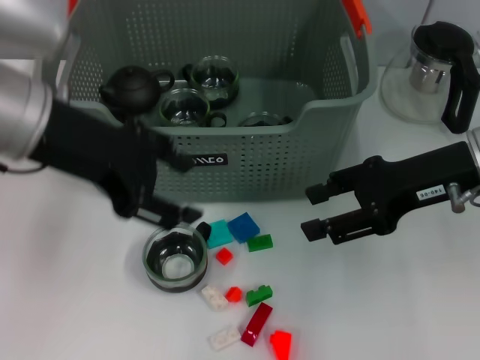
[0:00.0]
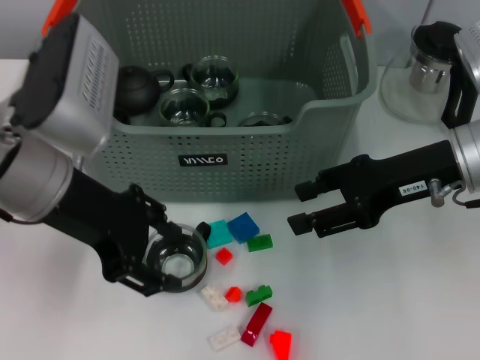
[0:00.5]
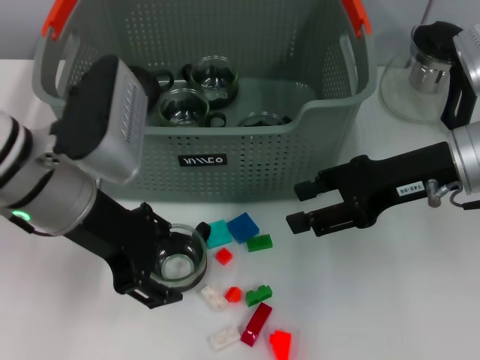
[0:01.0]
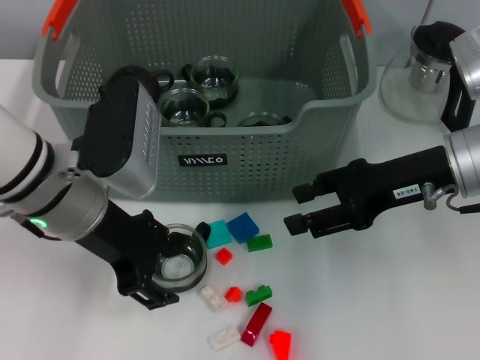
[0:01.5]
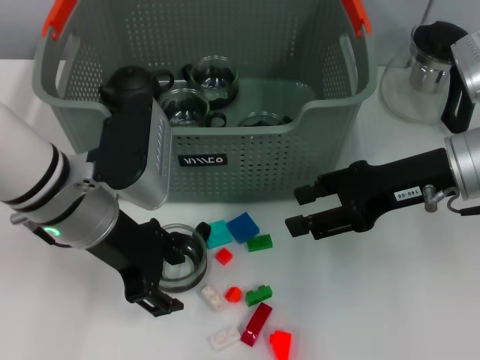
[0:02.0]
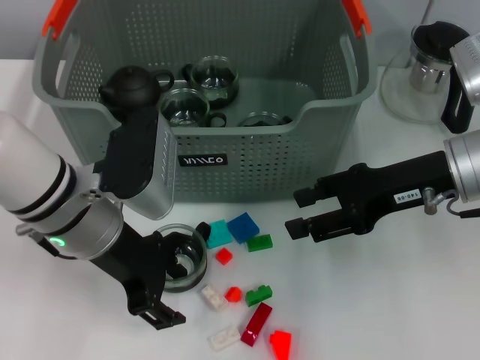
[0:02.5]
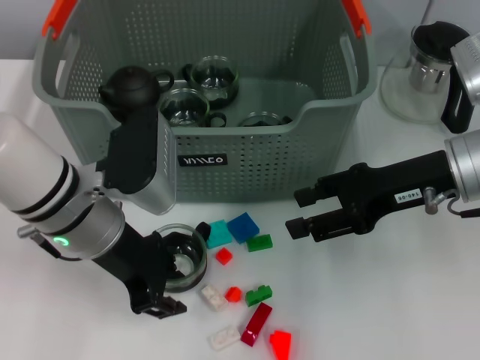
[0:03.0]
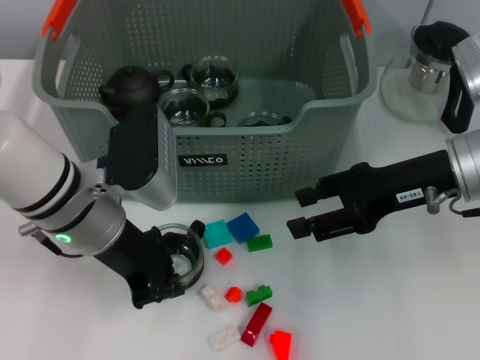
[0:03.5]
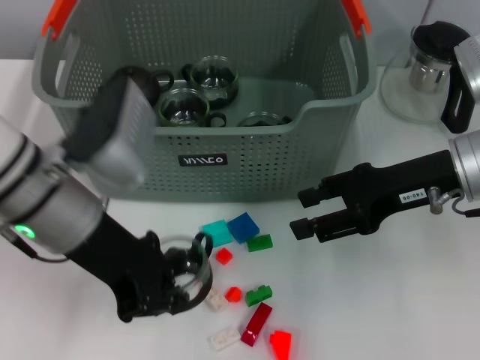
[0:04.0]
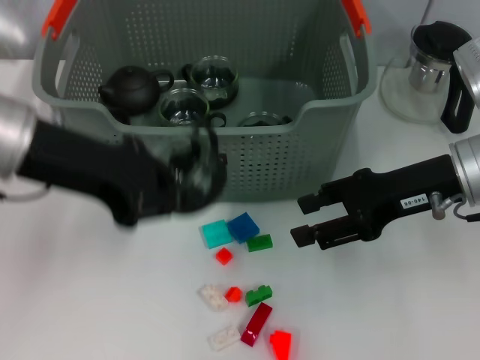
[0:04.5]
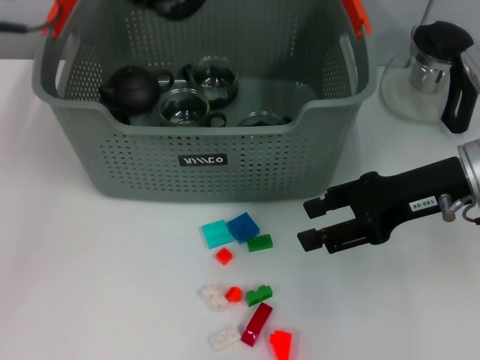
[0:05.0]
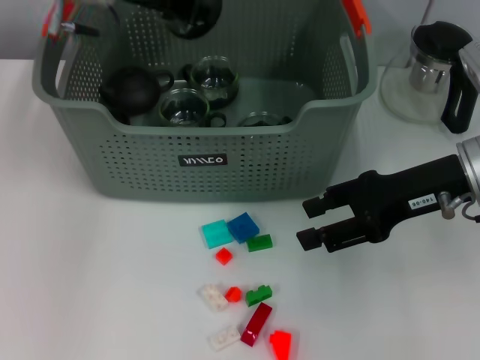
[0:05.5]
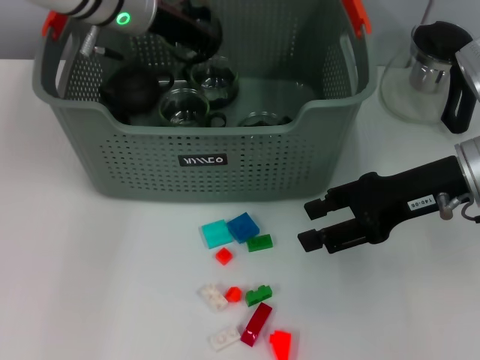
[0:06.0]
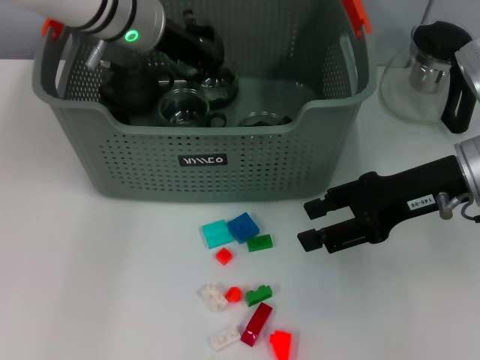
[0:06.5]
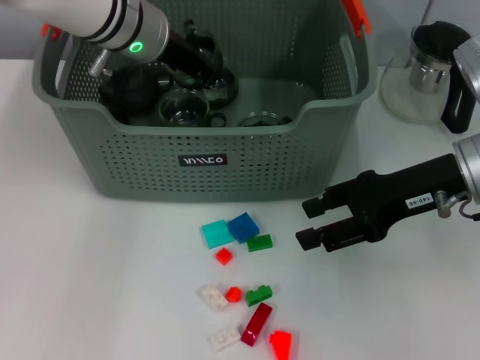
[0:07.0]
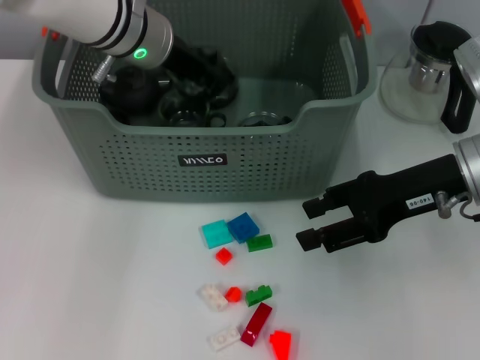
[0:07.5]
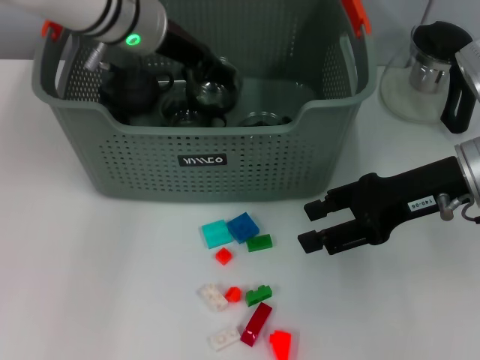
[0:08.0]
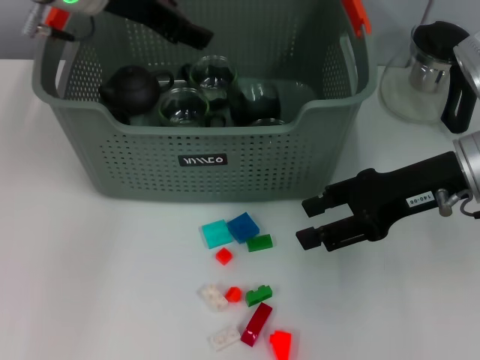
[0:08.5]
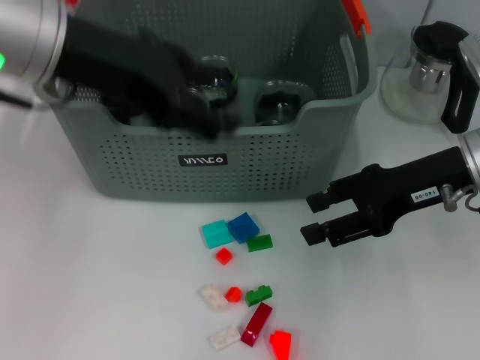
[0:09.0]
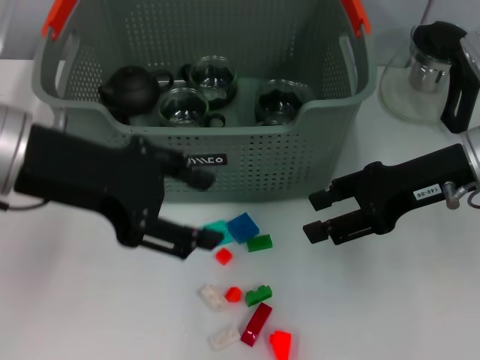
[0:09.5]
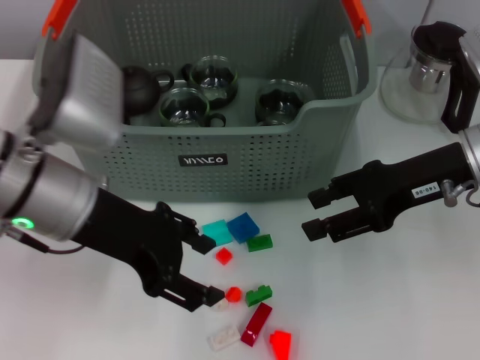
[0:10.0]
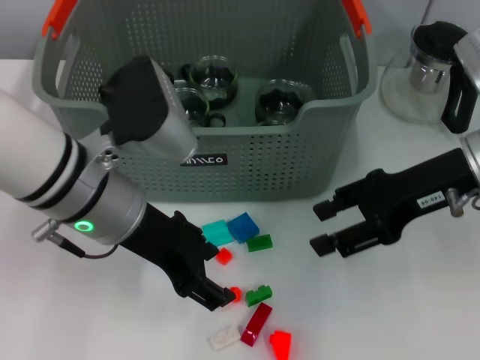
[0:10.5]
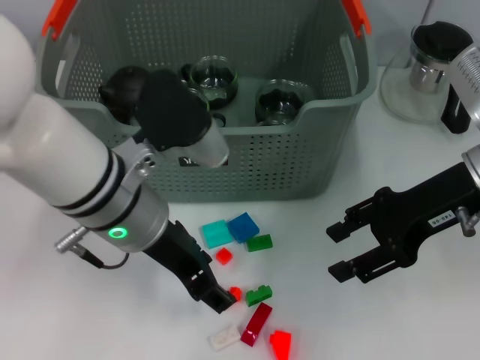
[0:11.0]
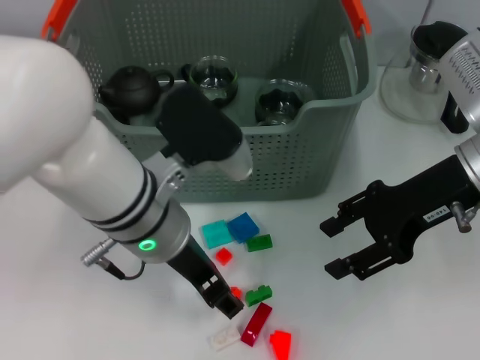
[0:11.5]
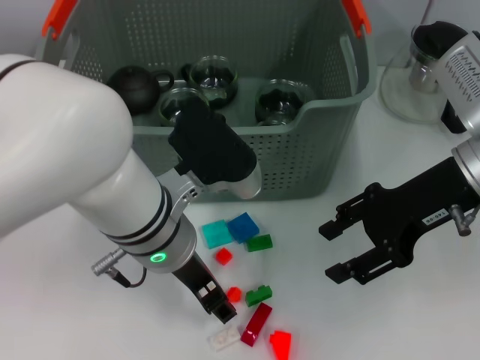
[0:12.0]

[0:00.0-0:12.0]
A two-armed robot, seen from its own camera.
Task of the whole recording: pick up the teacup on the table and place it into the storage bin, pick up the block on the table and place it into the storage bin.
Step, 0:00.0 to 0:03.0: Grasp the cup with left gripper.
Step, 0:04.0 to 0:07.5: Place the cup in the storage box with left gripper.
0:00.0 to 0:02.0: The left gripper travels downward by roughly 10 cm.
0:02.0 to 0:04.0: The left gripper closes its fingers.
0:04.0 to 0:06.0: The left gripper is displaced forward by approximately 15 cm.
0:06.0 to 0:08.0: The left gripper opens.
0:08.0 to 0:10.0: The left gripper shifts approximately 15 cm backward.
0:10.0 to 0:12.0: The left gripper heads to the right, covering about 10 cm.

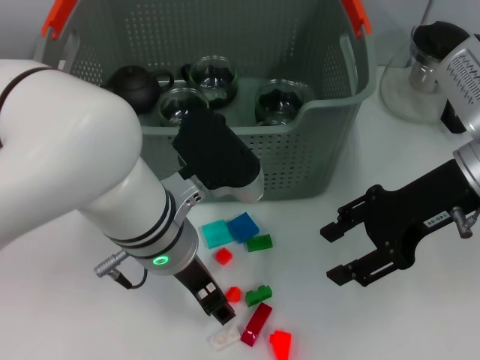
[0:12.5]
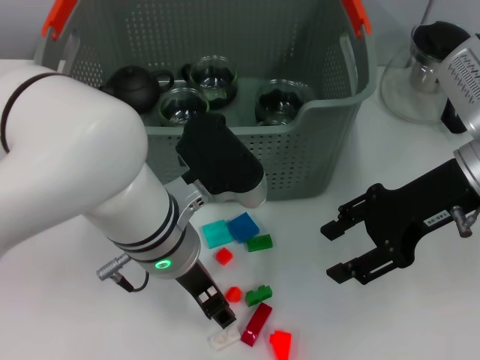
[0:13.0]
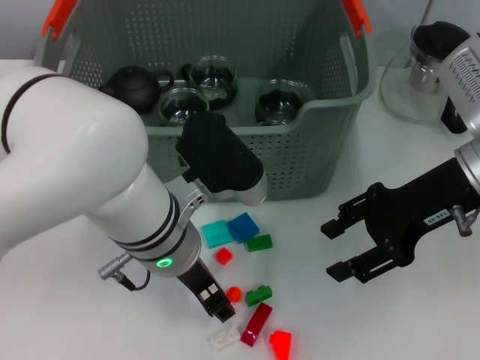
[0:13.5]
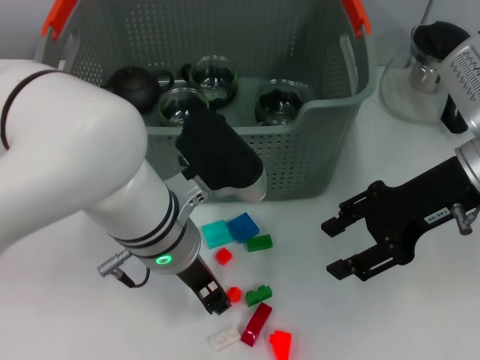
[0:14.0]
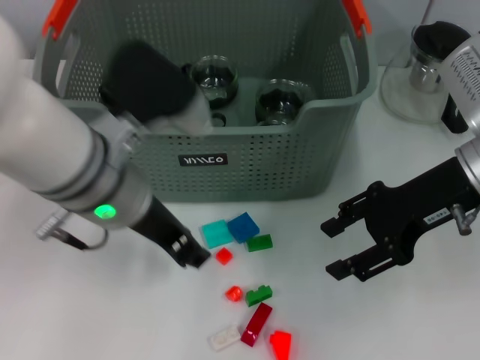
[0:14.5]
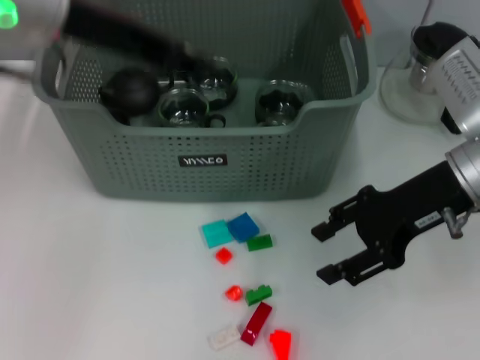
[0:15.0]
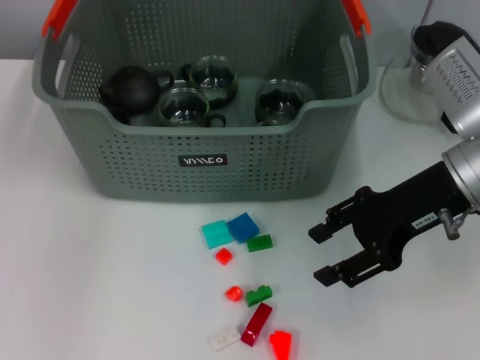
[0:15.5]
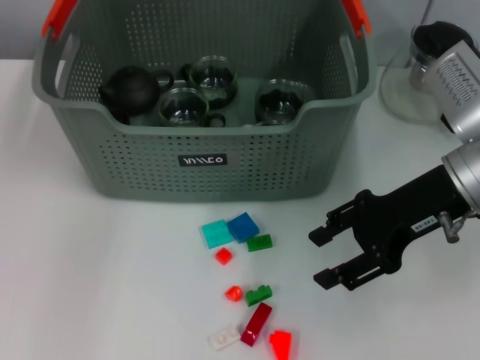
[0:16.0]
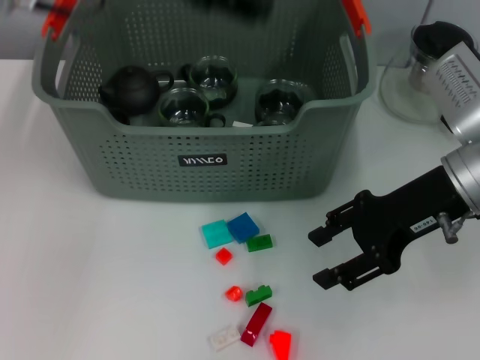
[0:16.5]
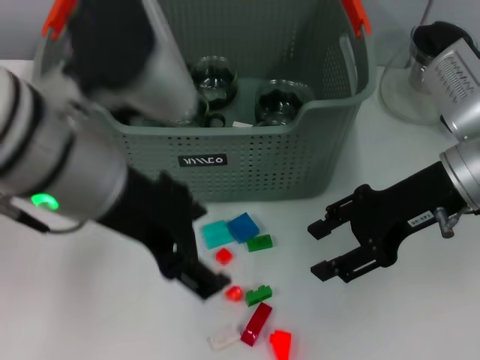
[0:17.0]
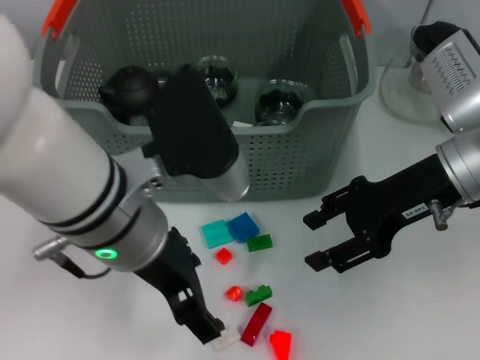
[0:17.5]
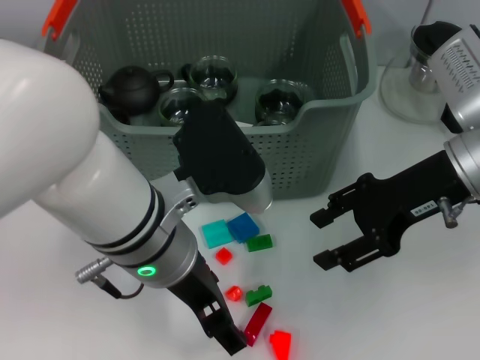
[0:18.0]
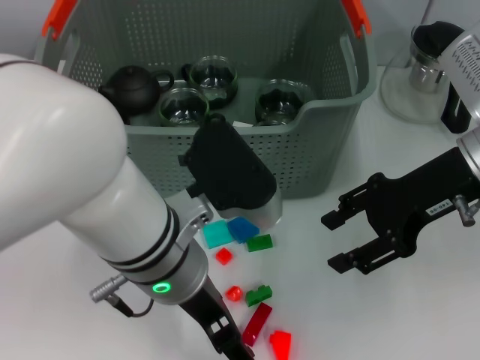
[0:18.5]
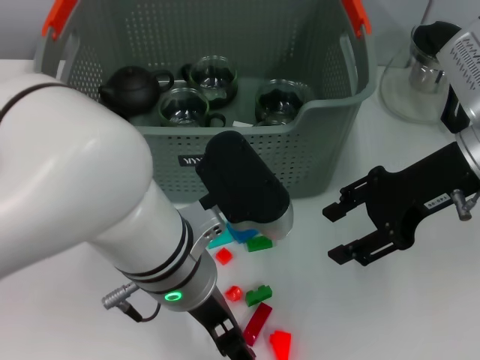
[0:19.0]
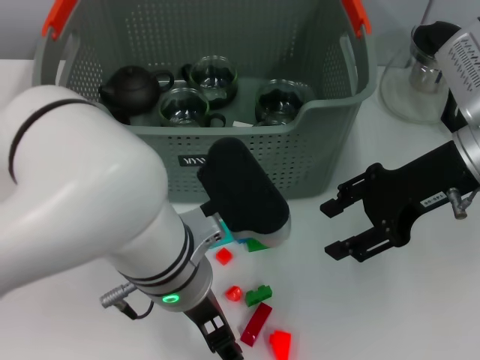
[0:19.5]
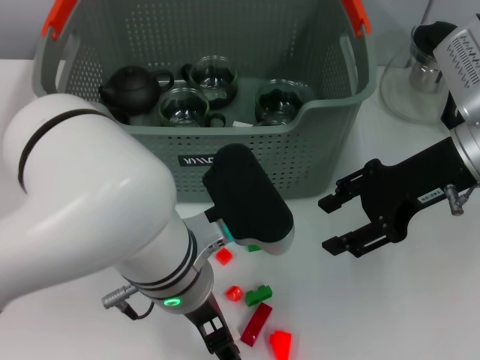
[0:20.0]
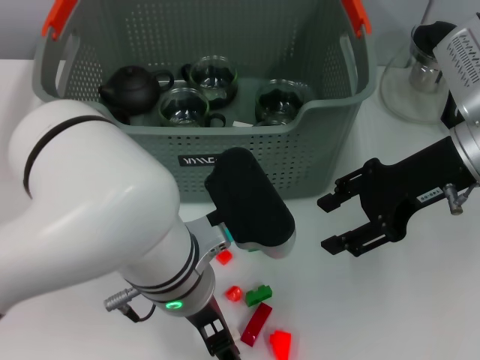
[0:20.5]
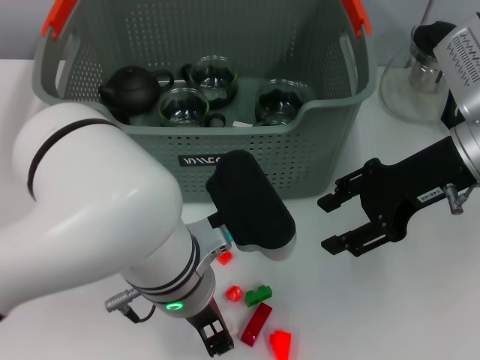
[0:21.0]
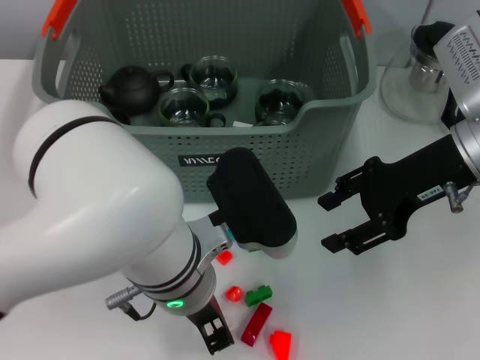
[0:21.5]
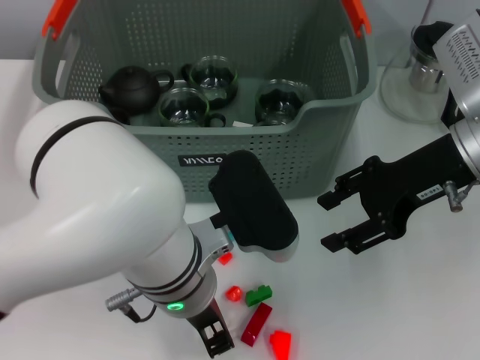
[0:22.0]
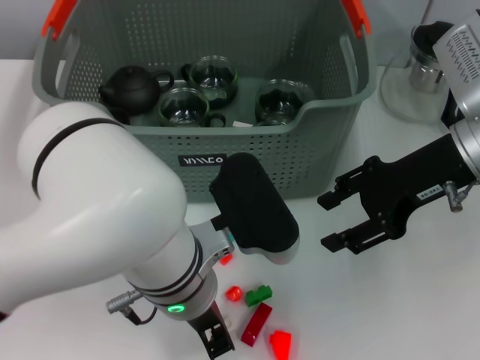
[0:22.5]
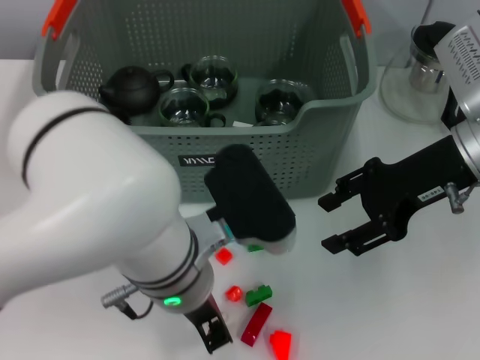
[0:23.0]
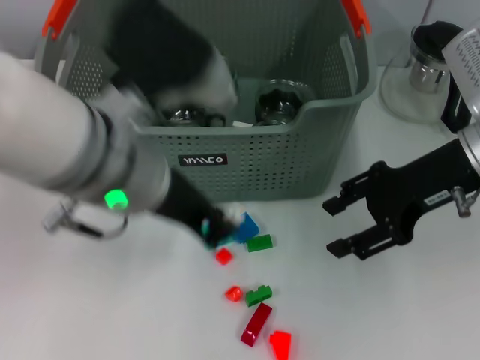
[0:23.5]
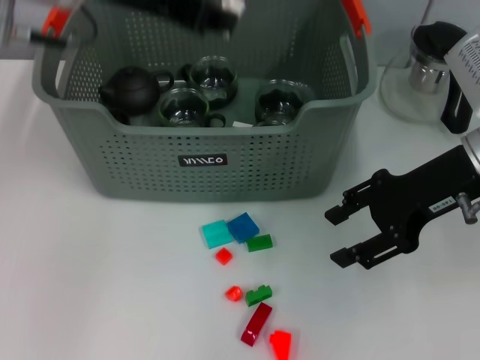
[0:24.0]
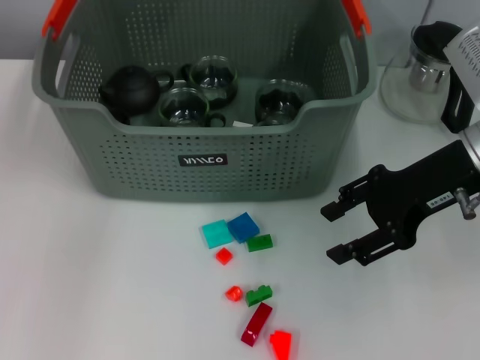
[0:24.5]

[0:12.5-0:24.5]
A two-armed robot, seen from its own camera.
Task of the whole recording: pick up the teacup on the table and place it into the storage bin, pick up the block on the table and place it into the storage bin.
Step, 0:14.0 to 0:15.5: Place the white block in the storage box with left gripper.
Step, 0:16.0 to 0:22.5: Grasp the white block with left gripper.
0:12.5 to 0:14.5: The left gripper goes about 5 cm upward, and closes.
0:14.5 to 0:16.5: The left gripper goes approximately 15 cm upward and forward, and opens.
0:16.5 to 0:18.5: The left gripper heads downward, backward and to the right, covering roughly 20 cm.
0:20.5 to 0:22.5: The left gripper closes up.
0:22.5 to 0:24.5: The left gripper moves forward, upward and to the left, some 25 cm.

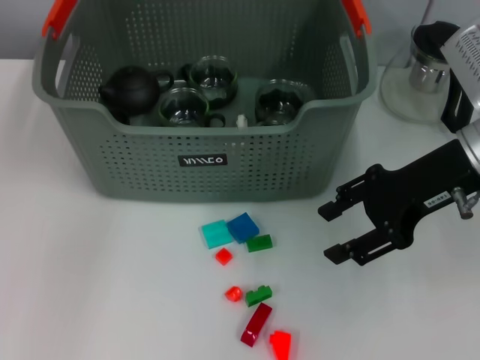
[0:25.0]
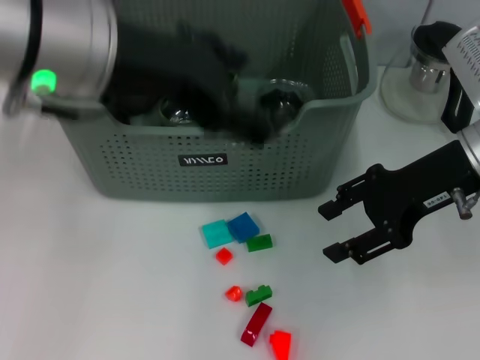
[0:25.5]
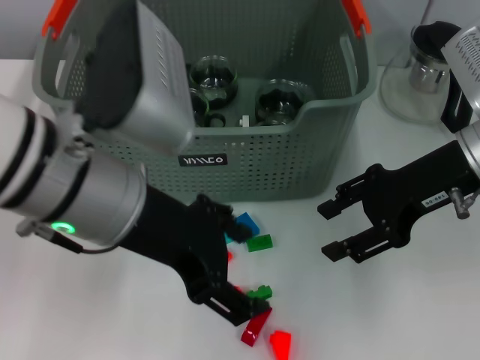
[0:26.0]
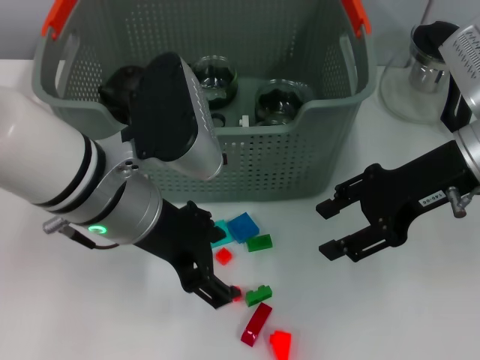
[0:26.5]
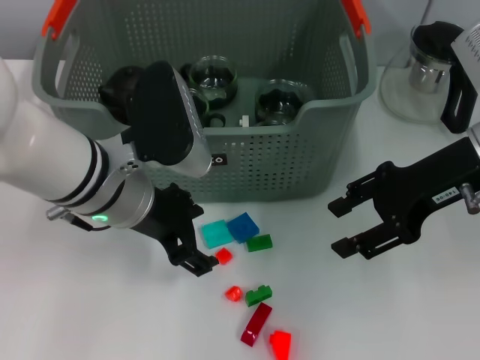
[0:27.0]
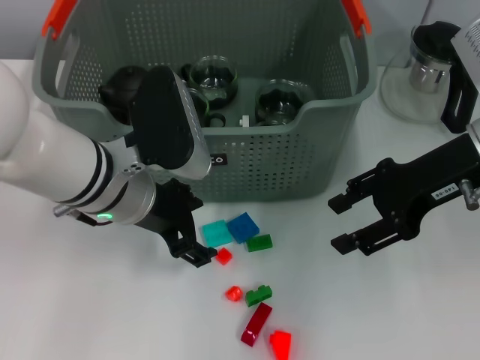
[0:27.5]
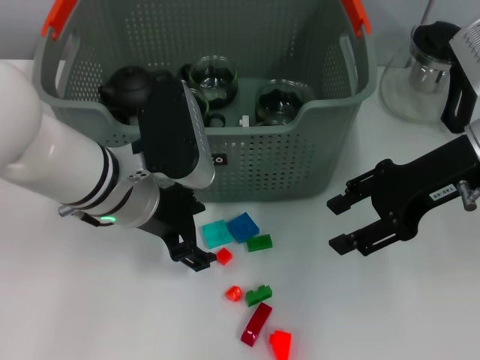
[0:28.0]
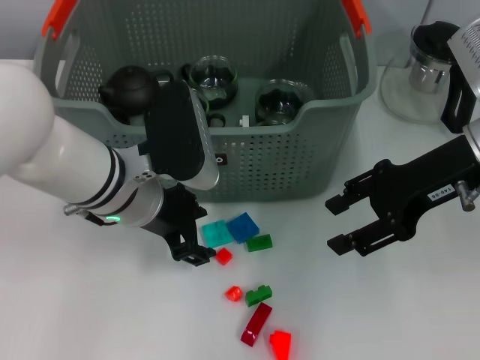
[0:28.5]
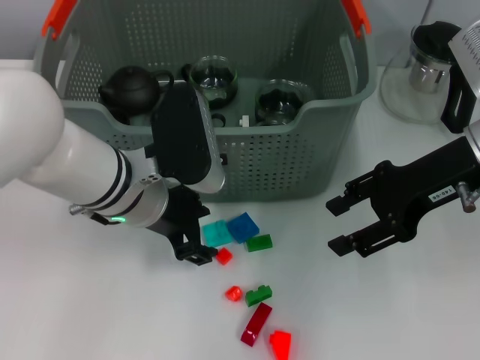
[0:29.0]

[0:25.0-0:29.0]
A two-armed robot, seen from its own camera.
Task of the whole recording: pick up the teacup on the table and place it into the storage bin, pick up the block on the table and place it into the storage bin.
0:25.0 to 0:27.0: The left gripper goes roughly 20 cm downward and backward, and opens up.
0:27.0 to 0:29.0: The grippers stay close to where they were, moving slightly.
